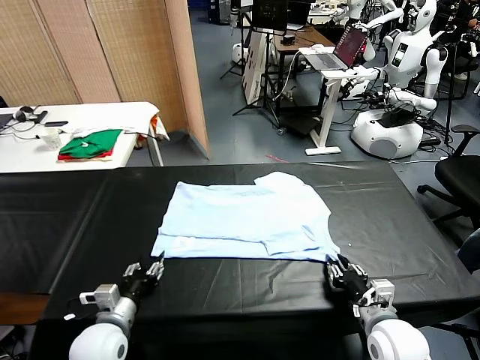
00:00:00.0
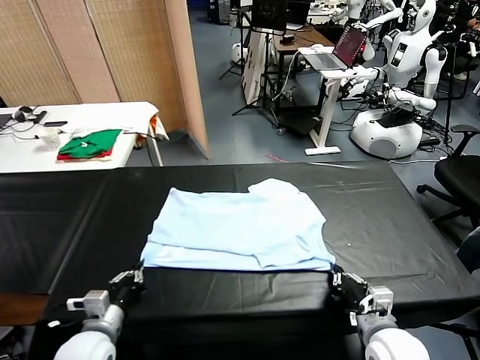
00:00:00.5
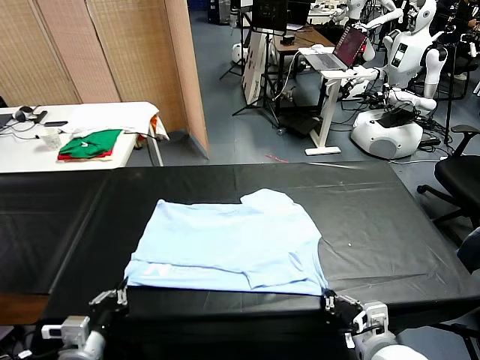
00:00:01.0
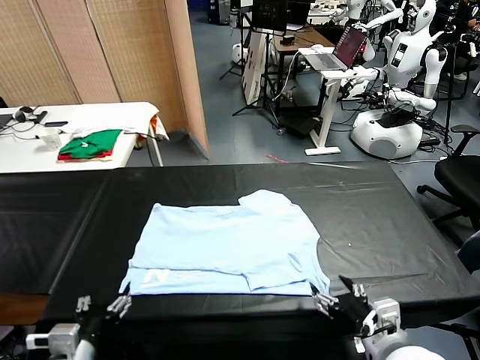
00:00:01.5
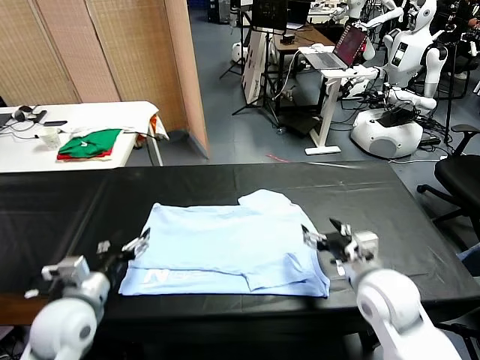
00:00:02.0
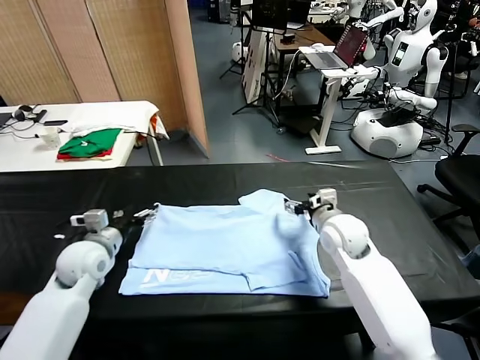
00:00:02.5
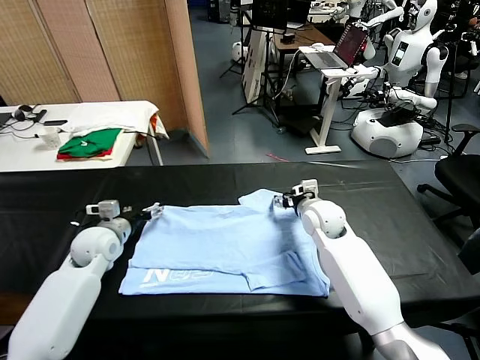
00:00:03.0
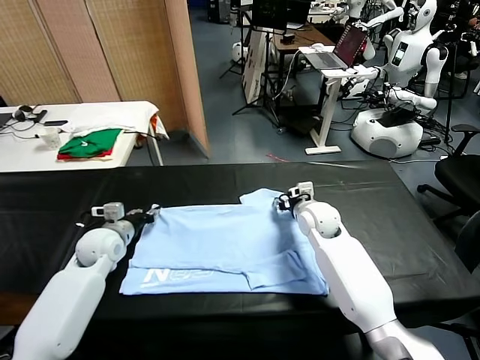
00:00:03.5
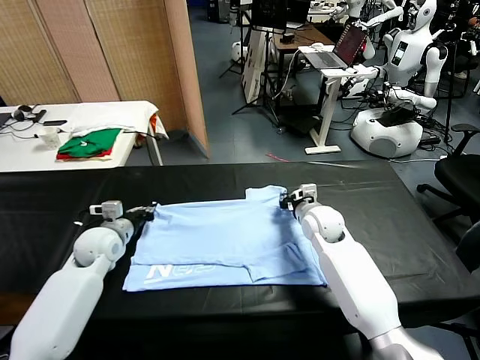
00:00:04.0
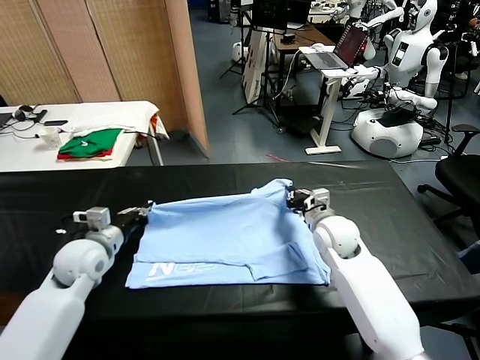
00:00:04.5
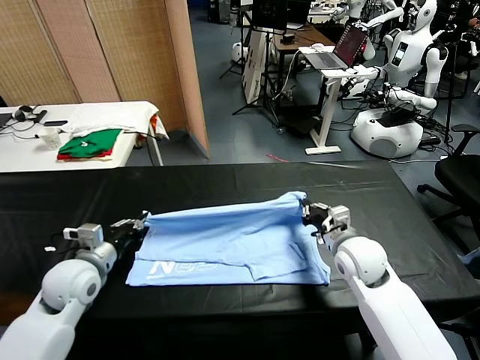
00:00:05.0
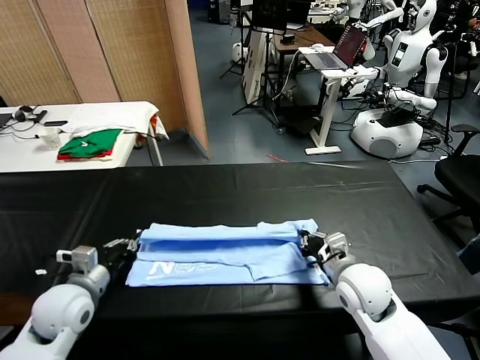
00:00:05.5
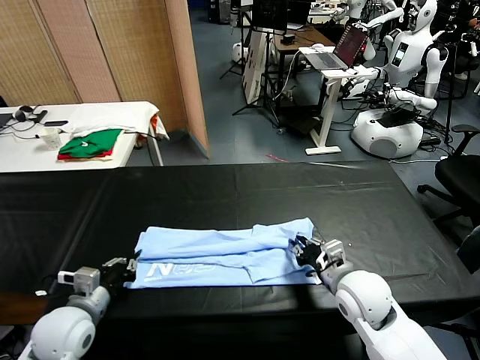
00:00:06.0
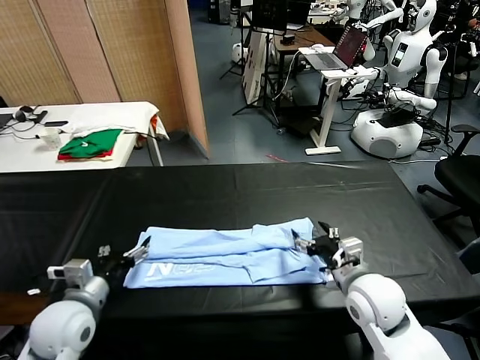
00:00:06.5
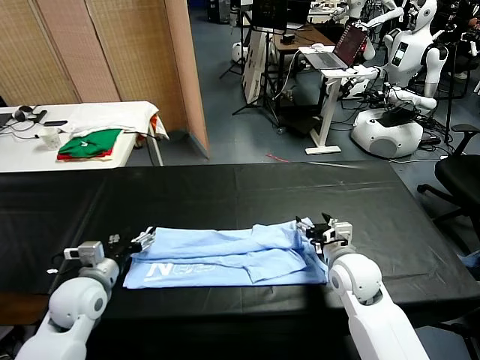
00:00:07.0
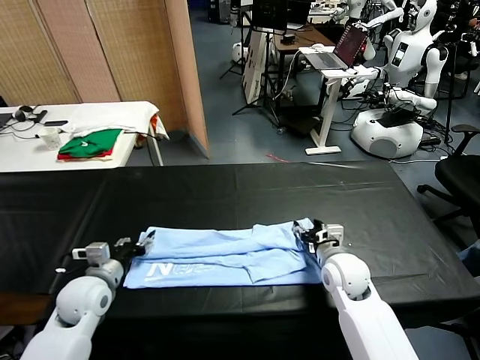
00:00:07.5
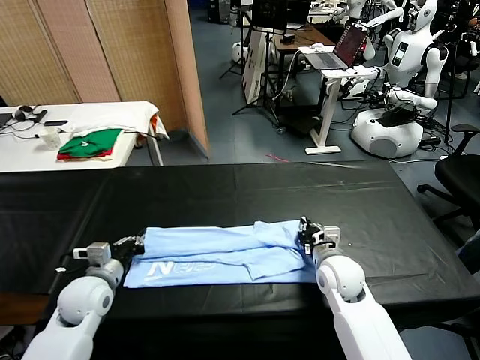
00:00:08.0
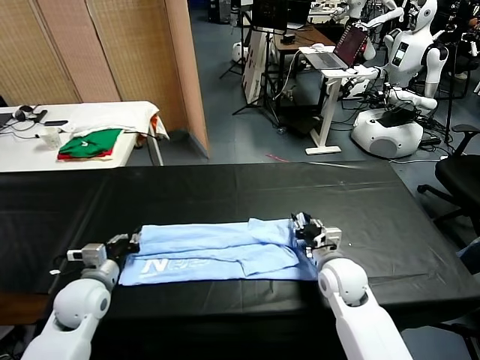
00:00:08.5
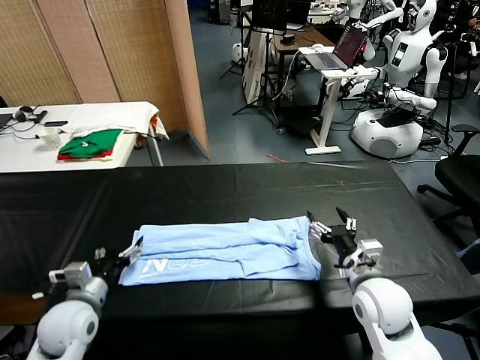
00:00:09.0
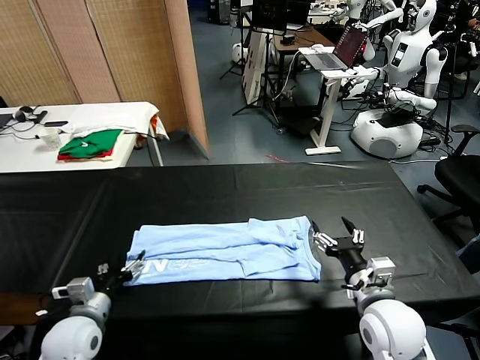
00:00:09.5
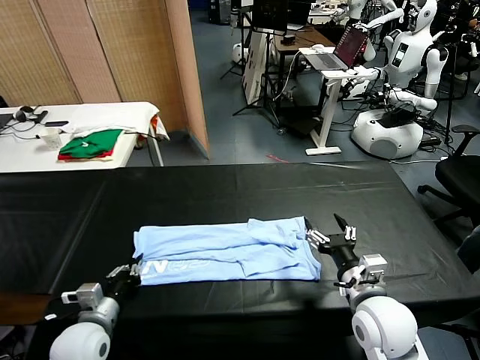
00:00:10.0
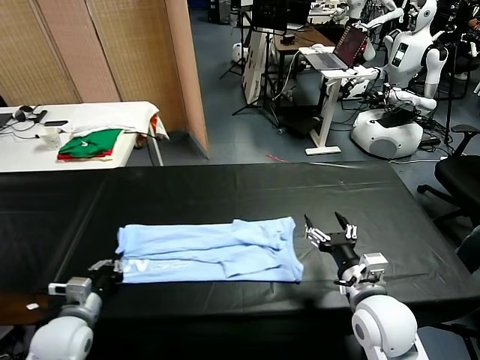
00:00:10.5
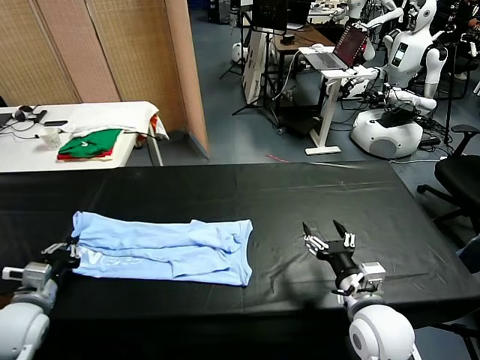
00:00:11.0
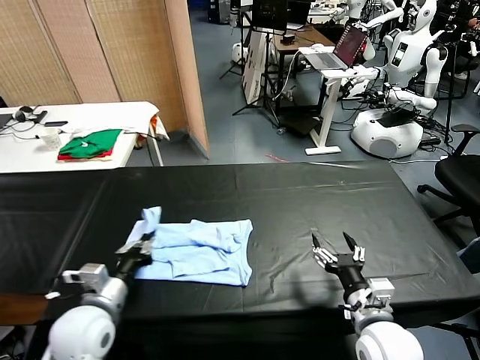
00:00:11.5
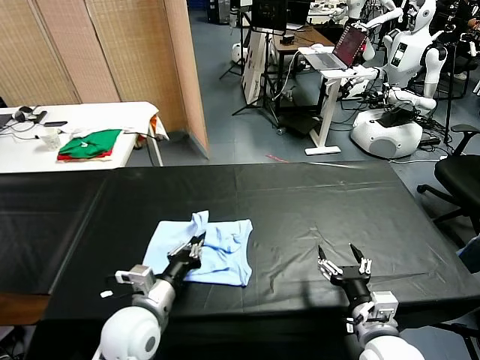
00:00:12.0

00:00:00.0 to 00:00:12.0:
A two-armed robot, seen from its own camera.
Task of the whole recording: fold and organize the clothes.
Step, 00:00:01.5 to 00:00:03.5: use both grippers simultaneously to clamp the upper edge of the clothing fabric.
Step, 00:00:04.0 to 00:00:06.0: use both grippers to drag the upper edge of the fabric backward and fold it over the lower edge.
Step, 00:00:06.5 to 00:00:09.5: use the left gripper to clamp the left edge of the fabric.
00:00:00.0 to 00:00:02.0: The left gripper is displaced upward by about 10 cm, reaches some 10 cm backward, then returns, and opens its fingers, while the right gripper shifts some 15 cm forward and upward, and opens.
00:00:02.0 to 00:00:04.0: The right gripper travels forward and downward by roughly 10 cm, and closes its fingers. Meanwhile the left gripper heads forward, covering about 15 cm, and closes.
00:00:04.0 to 00:00:06.0: Both grippers move backward, about 20 cm. The right gripper opens up.
00:00:06.0 to 00:00:08.0: The right gripper travels forward and downward by some 10 cm, and closes its fingers. Meanwhile the left gripper travels forward by some 10 cm, and opens and closes again.
00:00:08.0 to 00:00:10.0: The right gripper goes approximately 15 cm backward and upward, and opens. Meanwhile the left gripper goes approximately 10 cm backward, and opens and closes again.
00:00:10.0 to 00:00:12.0: The left gripper goes about 15 cm to the right and upward. The right gripper moves backward, roughly 5 cm.

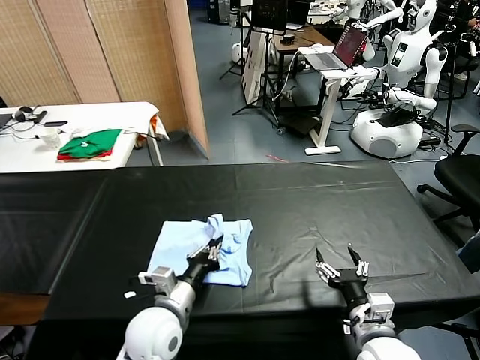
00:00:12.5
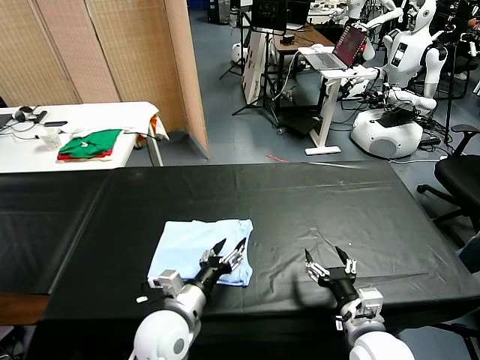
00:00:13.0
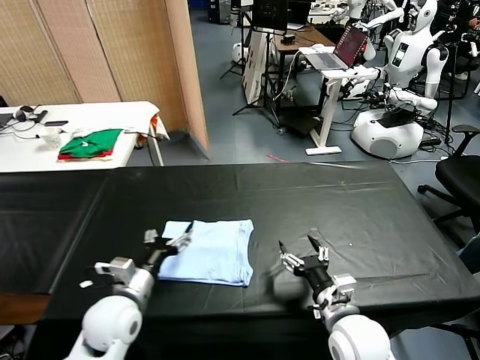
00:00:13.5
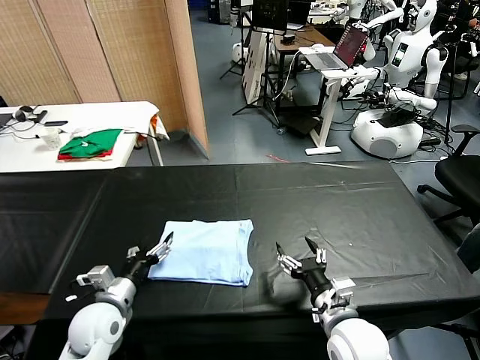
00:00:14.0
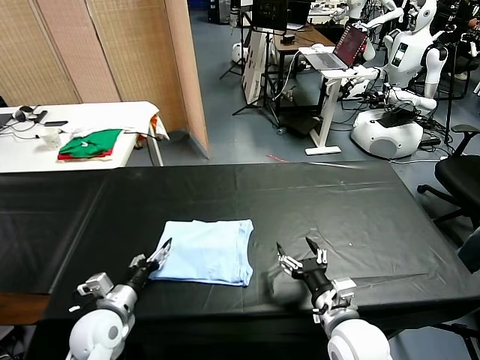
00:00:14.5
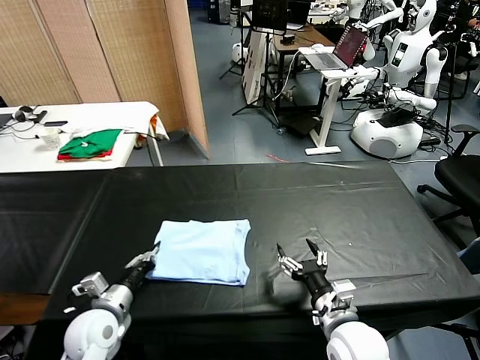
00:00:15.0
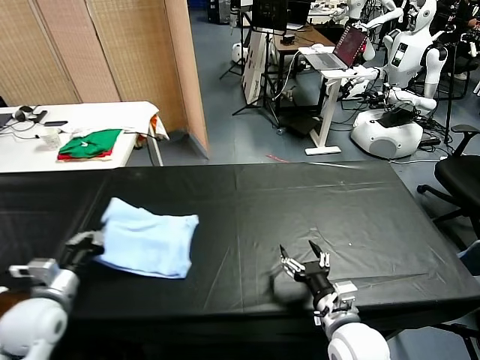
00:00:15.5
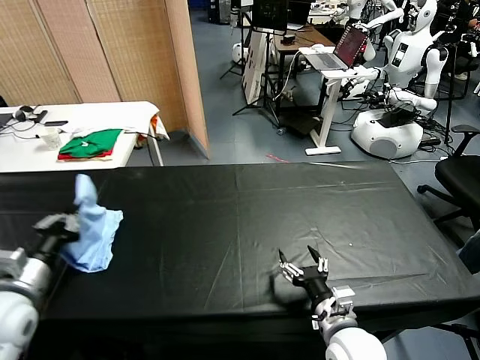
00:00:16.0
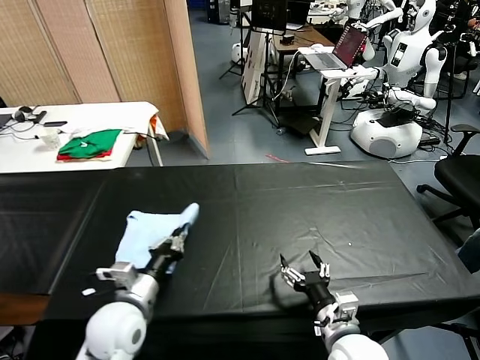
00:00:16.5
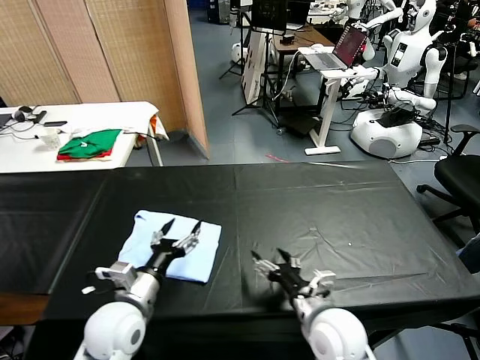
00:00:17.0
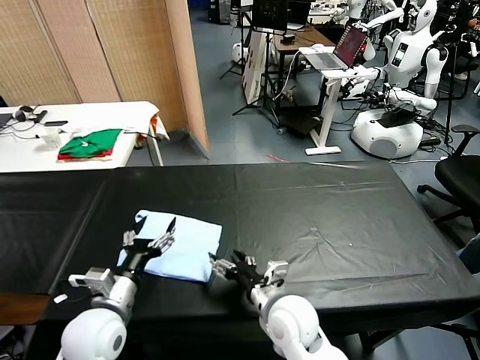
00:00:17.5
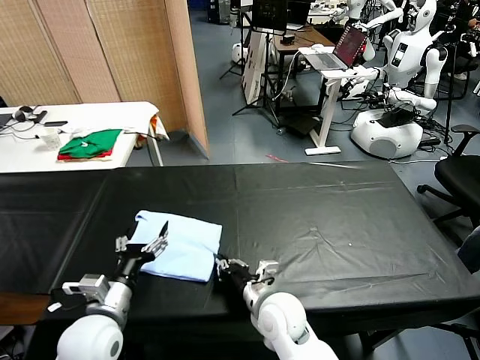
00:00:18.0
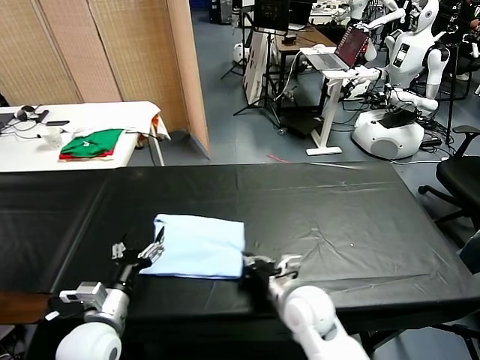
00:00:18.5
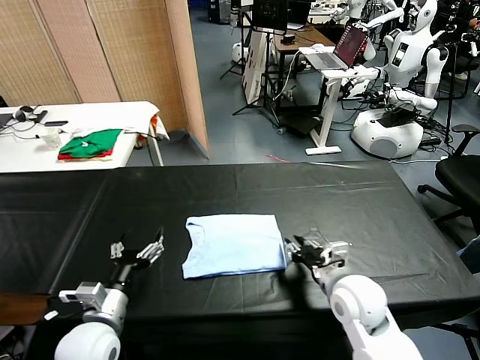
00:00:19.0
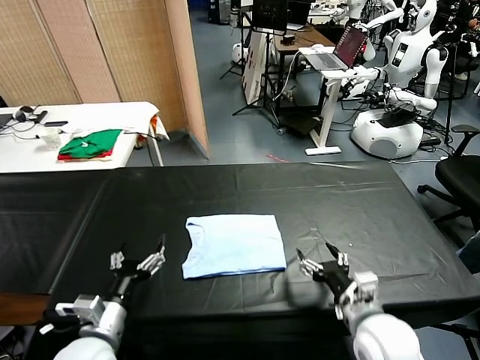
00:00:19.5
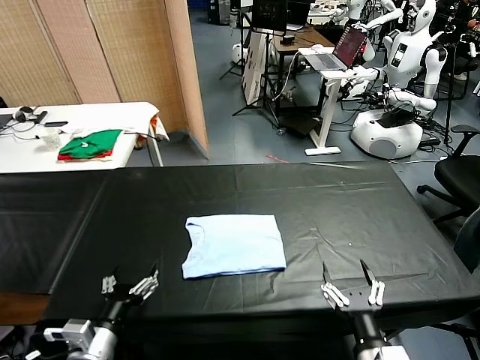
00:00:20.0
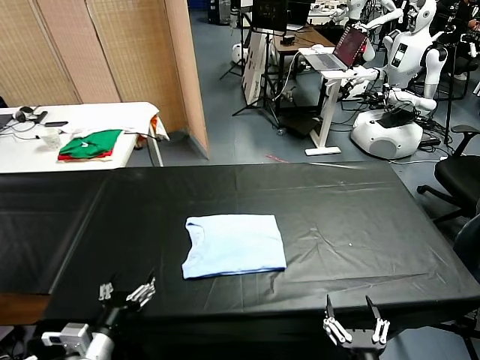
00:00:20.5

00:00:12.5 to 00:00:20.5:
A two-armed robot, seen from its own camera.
Task of the whole recording: fold and organize the clothes.
Step, 00:00:13.5 to 00:00:16.5: Flip the folded clothes over with left gripper.
Step, 00:00:17.0 to 00:00:18.5: Drag the clothes to the center of the table.
00:00:12.5 to 00:00:14.5: The left gripper heads to the left, covering approximately 15 cm, and opens up. Meanwhile the right gripper changes place by some 5 cm.
00:00:14.5 to 00:00:16.5: The left gripper goes some 10 cm upward and to the right, and closes up.
00:00:16.5 to 00:00:18.5: The left gripper opens its fingers; the right gripper is displaced forward and to the left by roughly 10 cm, and closes up.
00:00:18.5 to 00:00:20.5: The left gripper heads backward, covering about 5 cm; the right gripper heads backward, covering roughly 25 cm, and opens up.

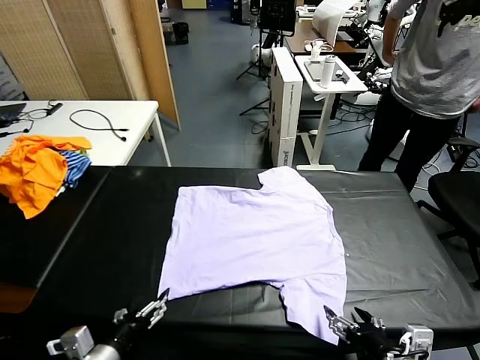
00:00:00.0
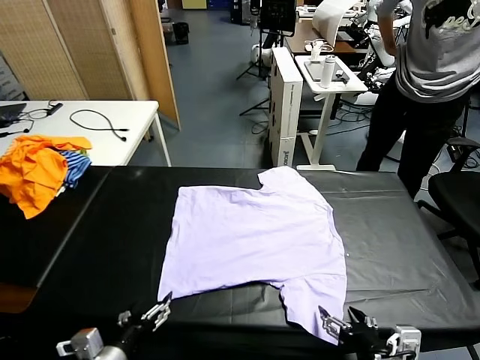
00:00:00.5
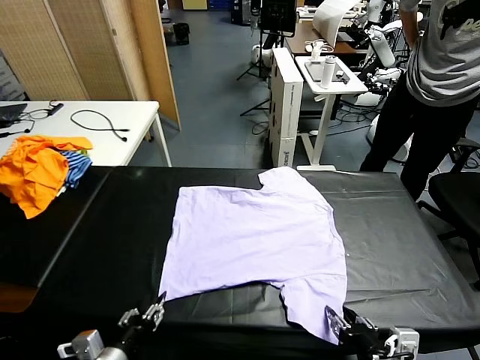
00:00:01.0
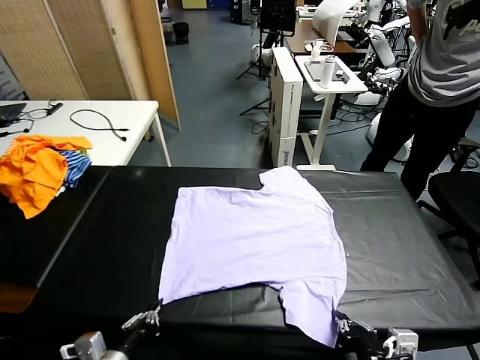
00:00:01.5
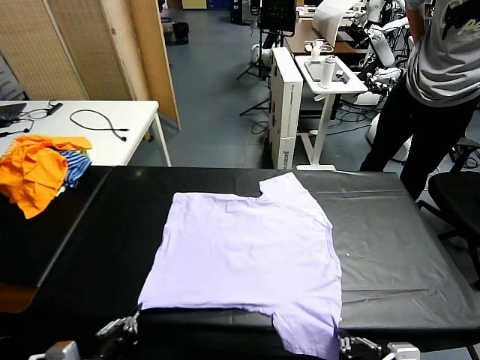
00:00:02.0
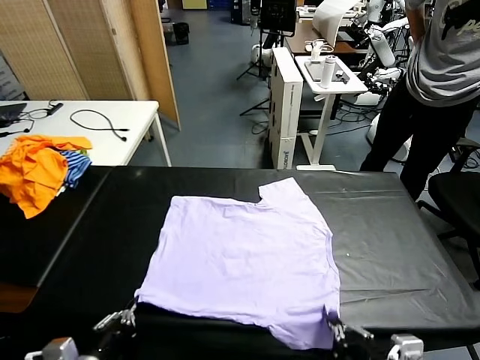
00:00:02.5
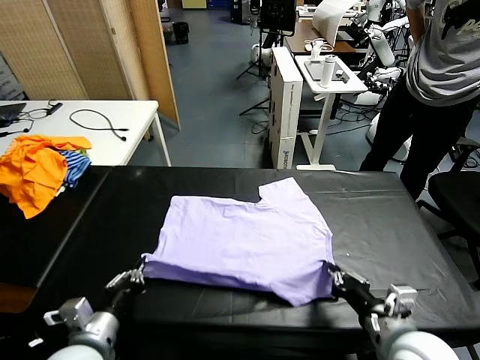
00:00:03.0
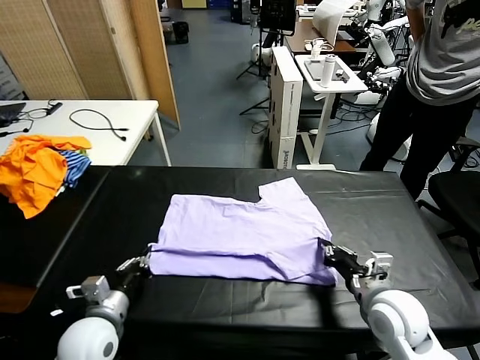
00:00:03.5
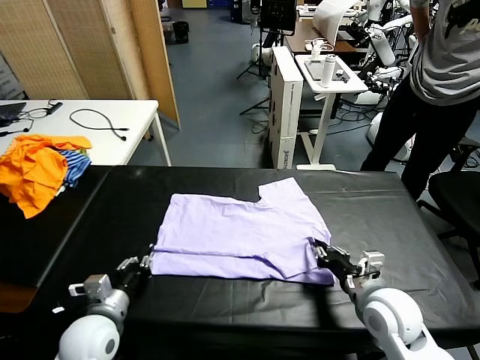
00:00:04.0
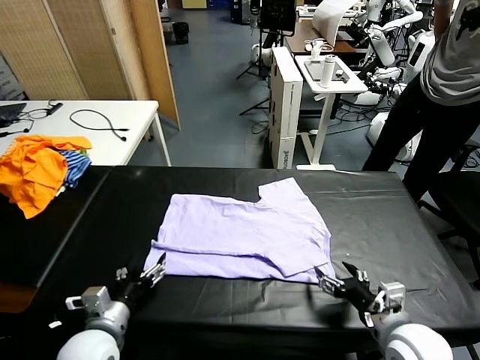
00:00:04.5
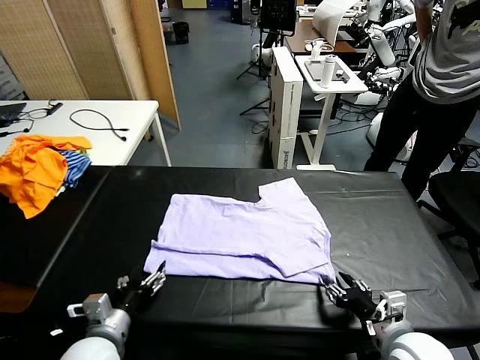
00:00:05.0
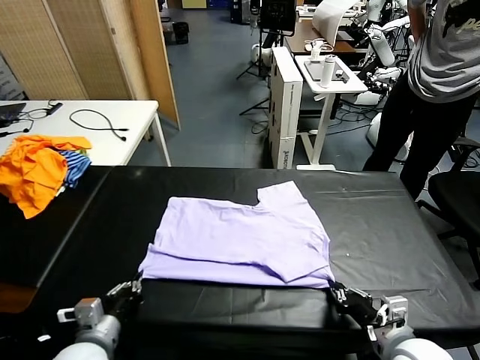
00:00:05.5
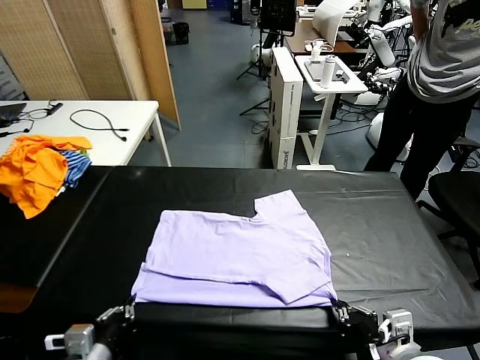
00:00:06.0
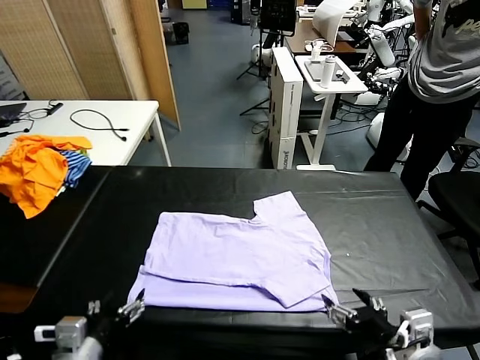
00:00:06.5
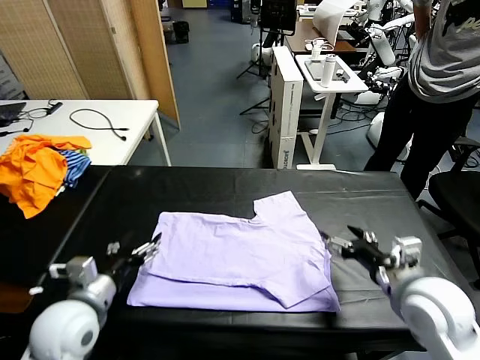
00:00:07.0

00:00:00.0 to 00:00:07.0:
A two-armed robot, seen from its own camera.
Task of the whole recording: fold and organize the clothes.
Step, 00:00:00.0 to 00:00:01.5: use both grippers simultaneously to clamp the lower edge of the clothing fabric.
Step, 00:00:02.0 to 00:00:04.0: use both grippers to drag the lower edge of the fabric forward and fold it over the upper edge.
Step, 00:00:04.5 to 00:00:06.0: Drag the clothes downward with both gripper.
00:00:02.0 to 00:00:03.5: Both grippers travel together forward, some 15 cm.
00:00:03.5 to 00:00:05.0: The left gripper opens, while the right gripper travels backward by some 10 cm, and opens and closes again.
00:00:05.0 to 00:00:07.0: The left gripper is displaced upward and forward by approximately 10 cm, and closes, then opens again; the right gripper moves forward and upward, some 15 cm, and opens up.
